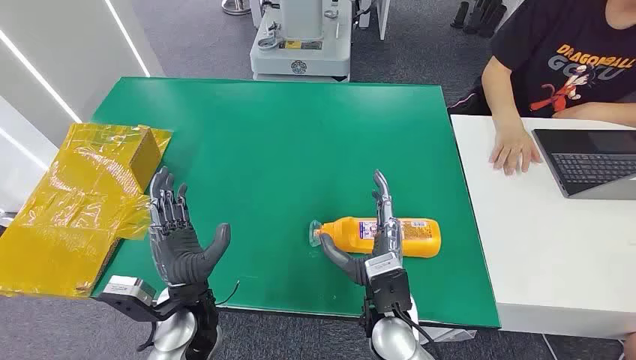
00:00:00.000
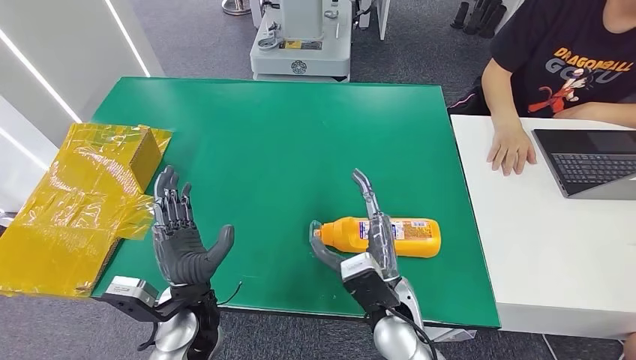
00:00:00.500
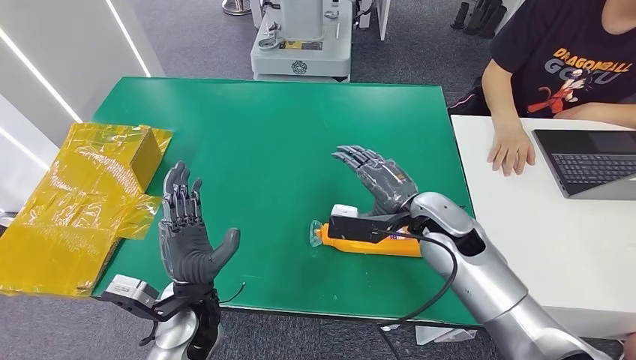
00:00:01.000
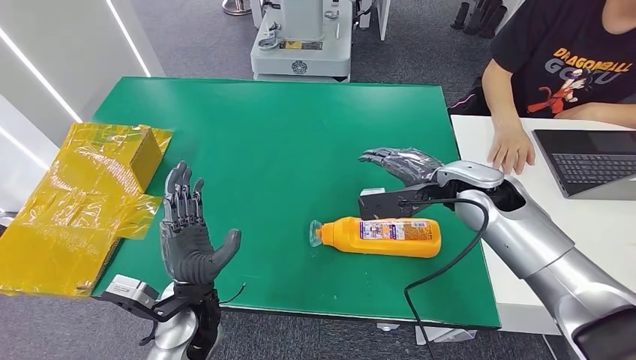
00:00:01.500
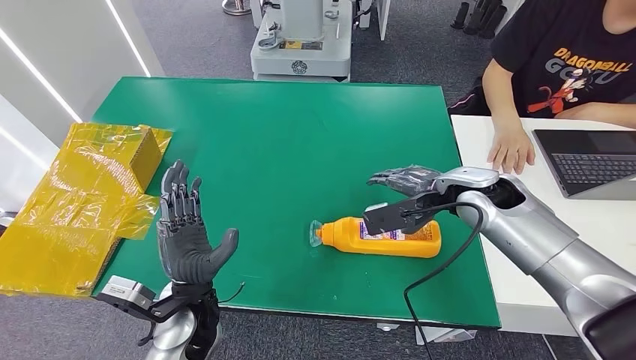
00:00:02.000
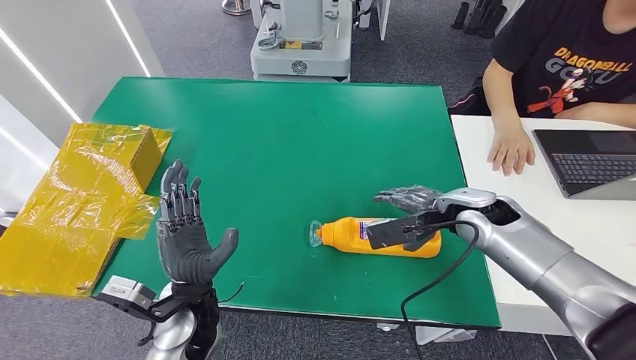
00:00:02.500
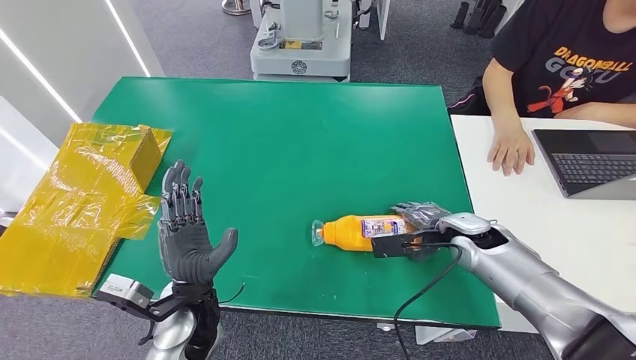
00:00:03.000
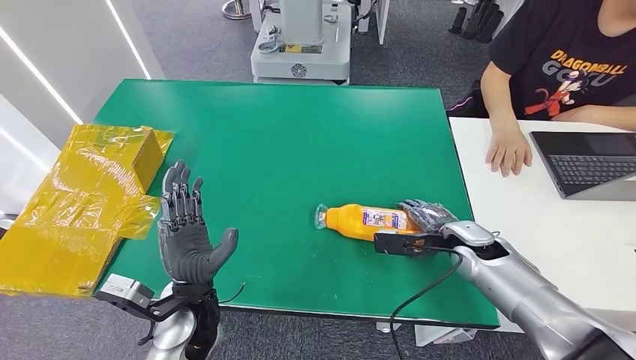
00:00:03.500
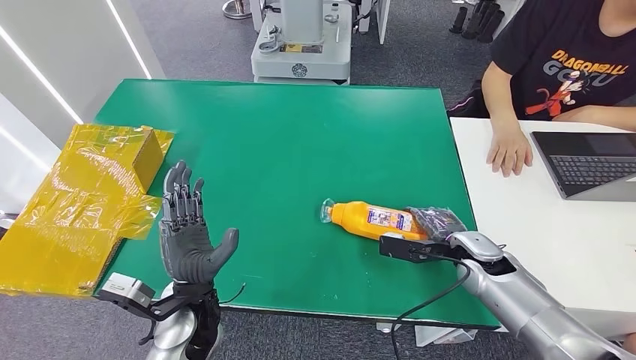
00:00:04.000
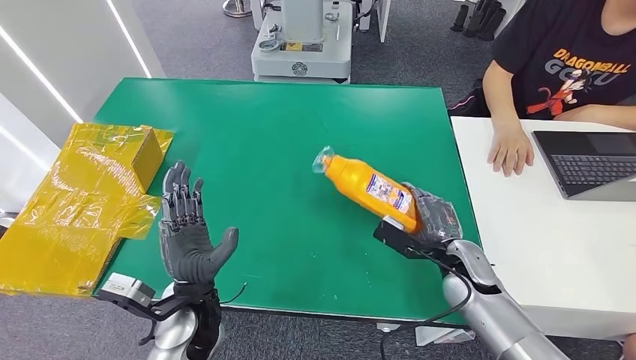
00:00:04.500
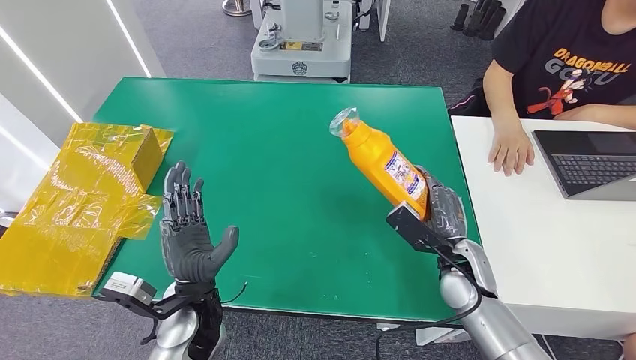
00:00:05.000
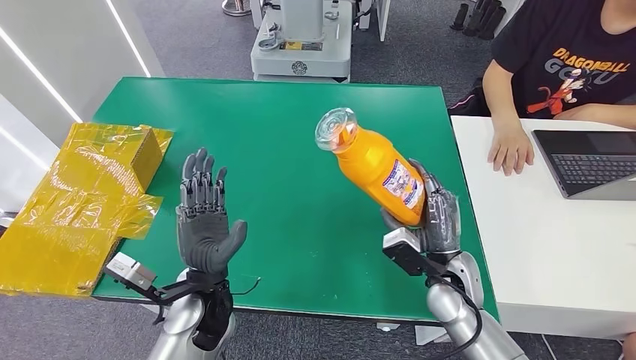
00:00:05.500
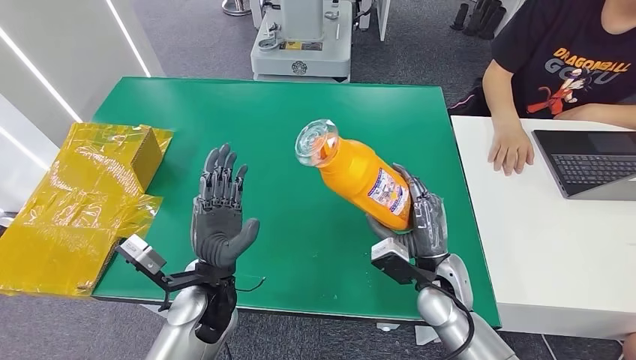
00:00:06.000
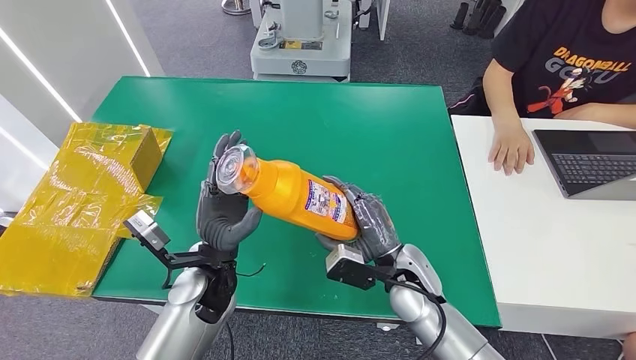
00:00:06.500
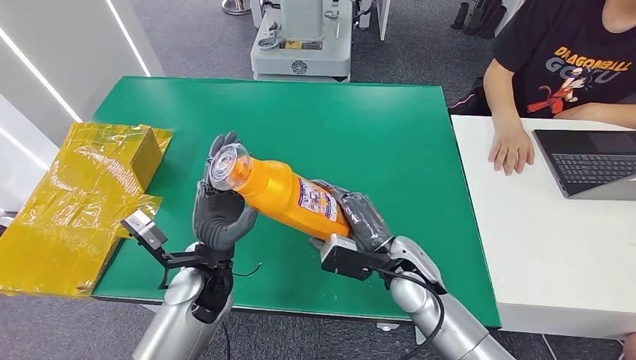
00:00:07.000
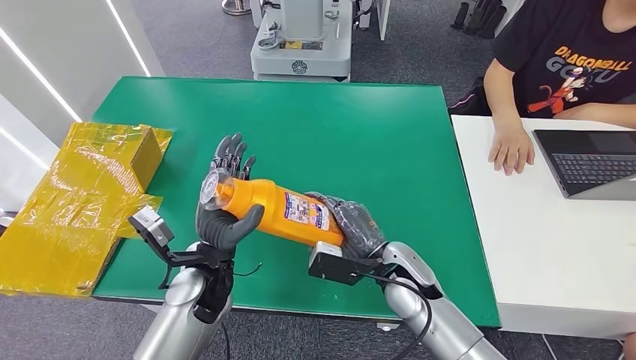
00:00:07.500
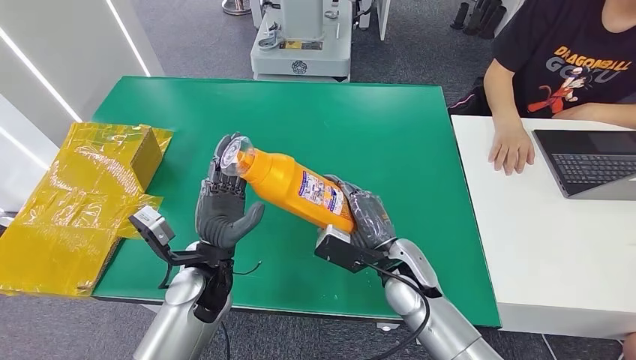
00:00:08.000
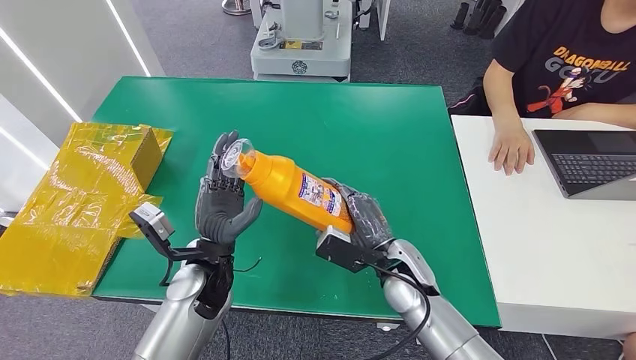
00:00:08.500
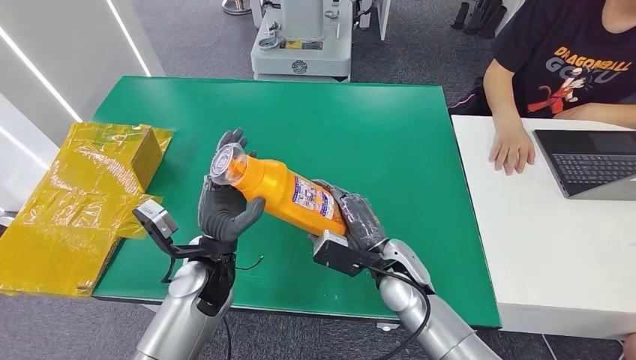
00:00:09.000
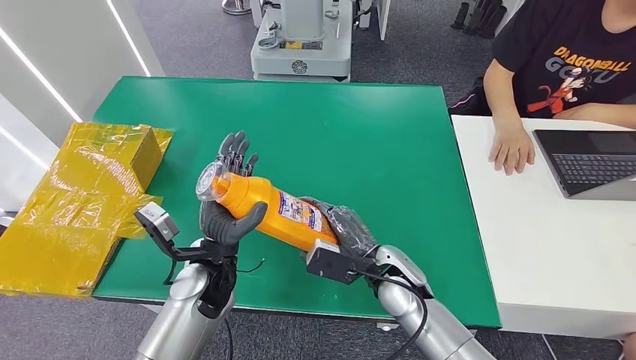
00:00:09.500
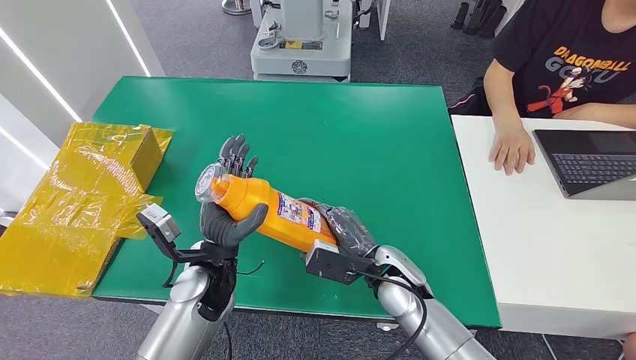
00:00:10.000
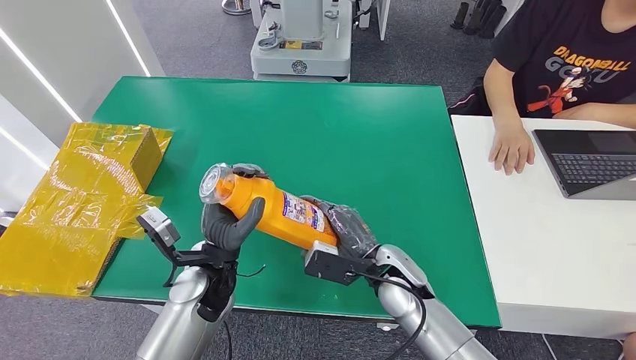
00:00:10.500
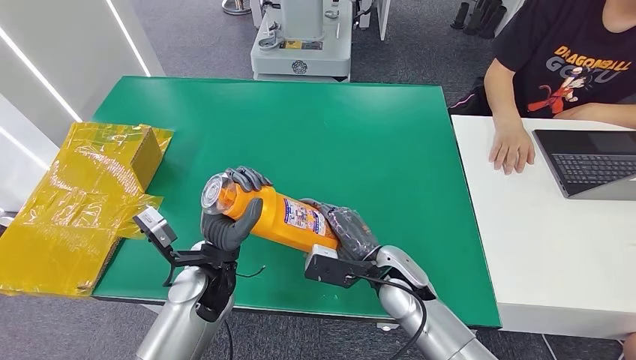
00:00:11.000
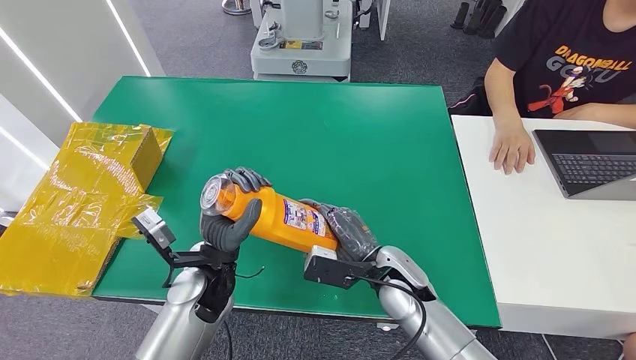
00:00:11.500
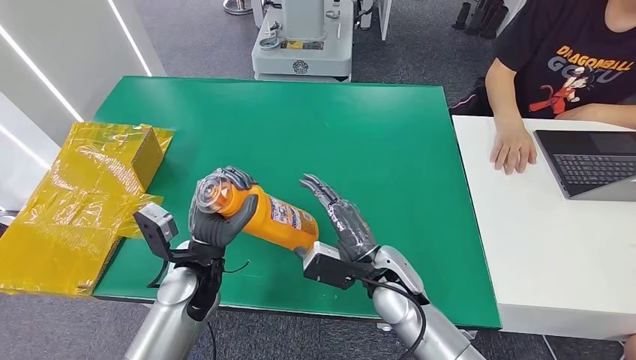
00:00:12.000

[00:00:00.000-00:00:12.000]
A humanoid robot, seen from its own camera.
Step, 00:00:00.000 to 00:00:05.000: Pick up the bottle from the table.
00:00:02.000 to 00:00:04.000: The right hand travels downward and backward by approximately 15 cm.
00:00:06.000 to 00:00:08.000: The right hand shifts some 5 cm to the left.
00:00:08.000 to 00:00:12.000: The hands make only small movements.

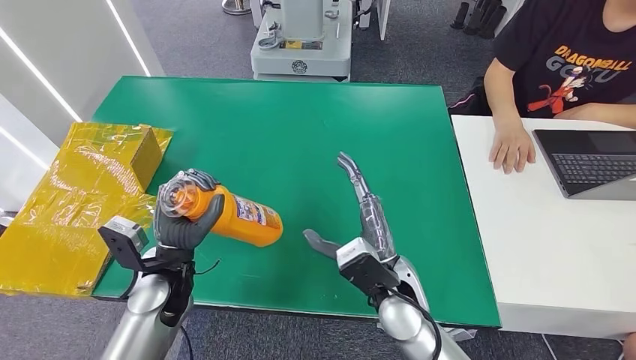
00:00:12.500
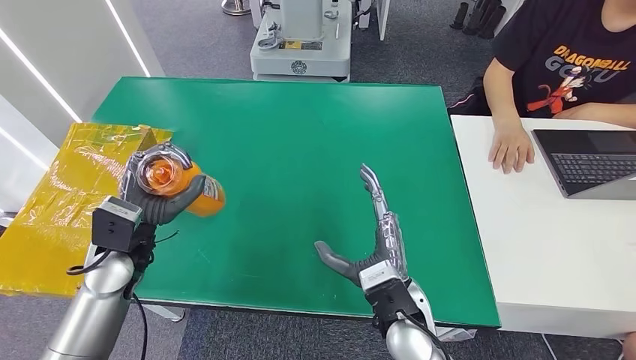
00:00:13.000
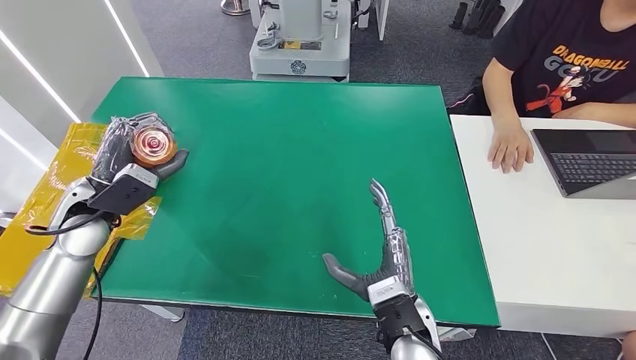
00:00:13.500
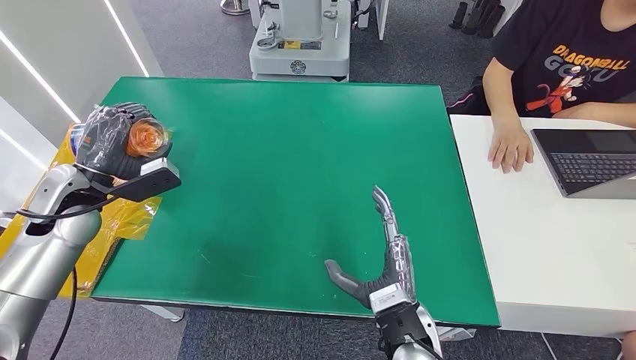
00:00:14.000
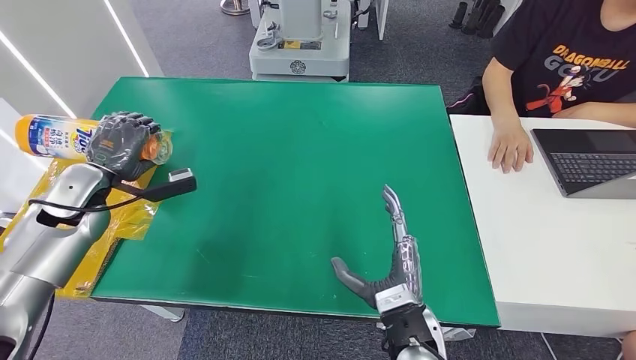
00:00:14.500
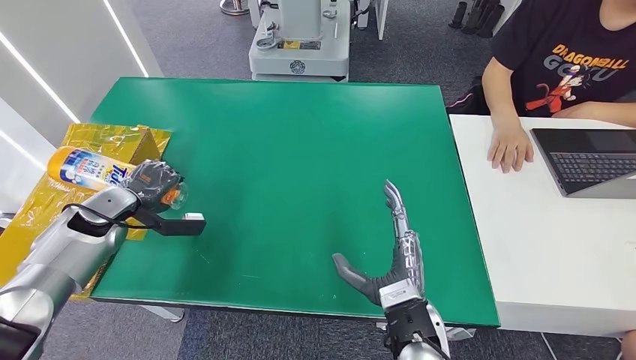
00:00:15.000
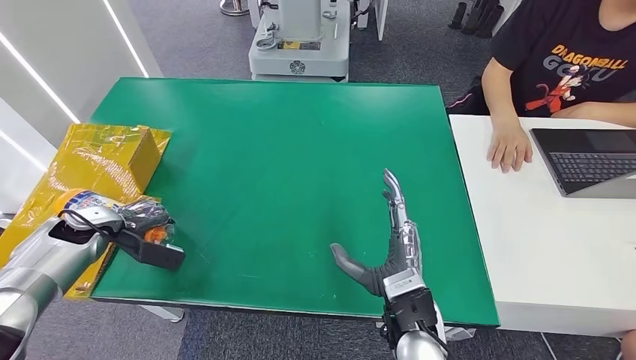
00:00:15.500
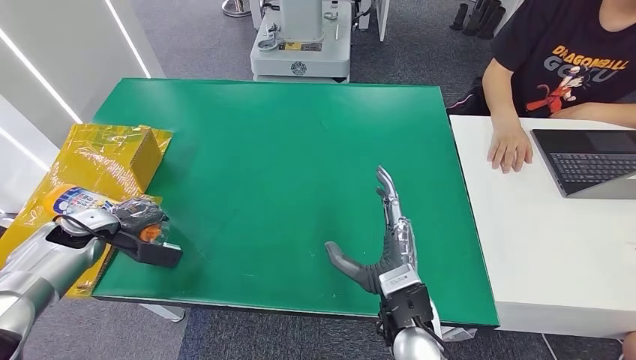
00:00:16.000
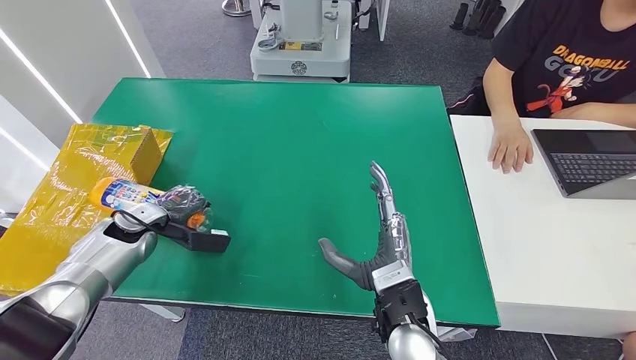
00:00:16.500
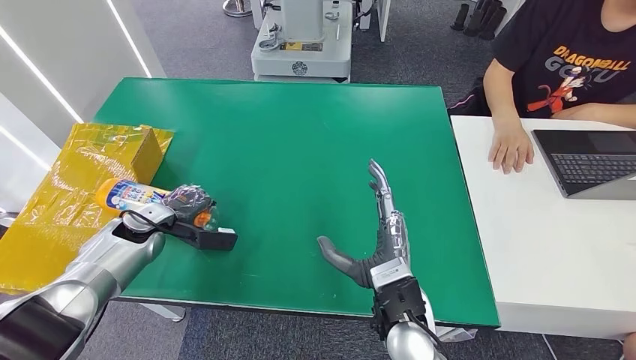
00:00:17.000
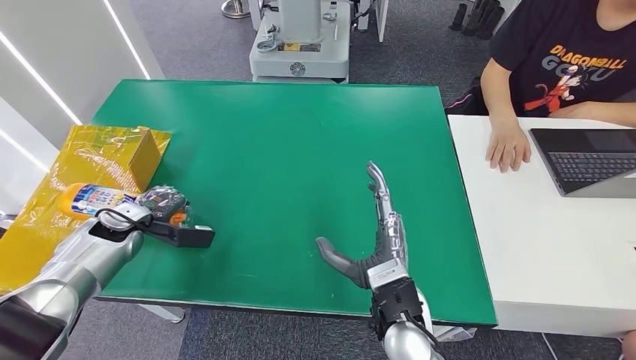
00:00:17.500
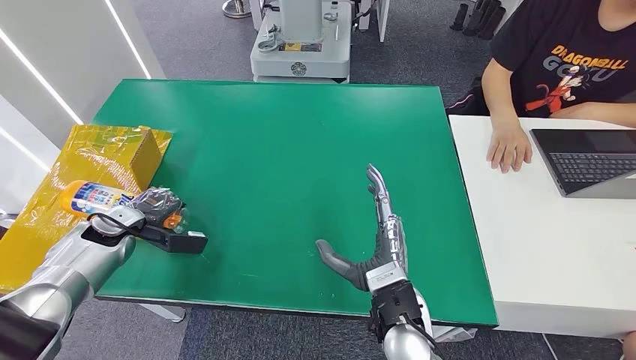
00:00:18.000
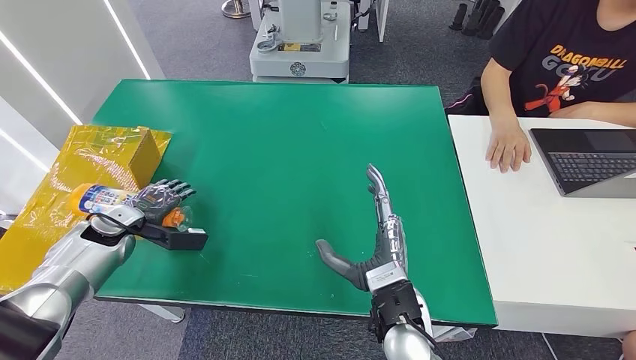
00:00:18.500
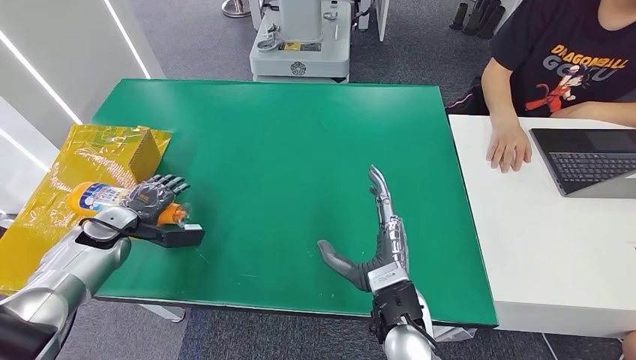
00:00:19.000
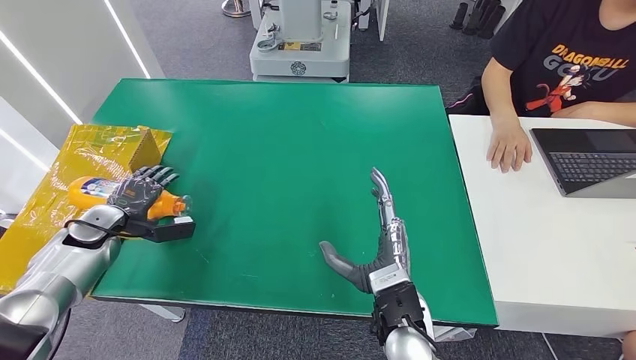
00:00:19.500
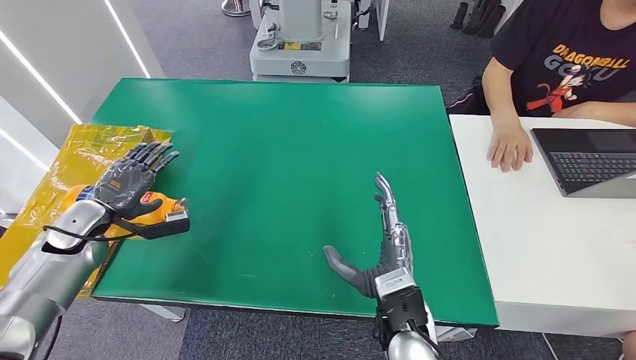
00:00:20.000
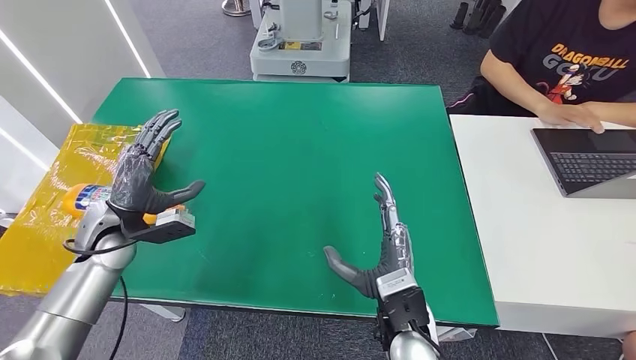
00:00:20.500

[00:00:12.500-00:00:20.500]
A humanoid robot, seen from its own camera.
Step, 00:00:12.500 to 00:00:20.500: Turn the bottle to the front side.
00:00:14.500 to 00:00:16.500: The left hand moves downward, roughly 10 cm.
00:00:16.500 to 00:00:18.500: The hands make only small movements.
00:00:18.500 to 00:00:20.500: The left hand heads to the right and upward, covering some 10 cm.
